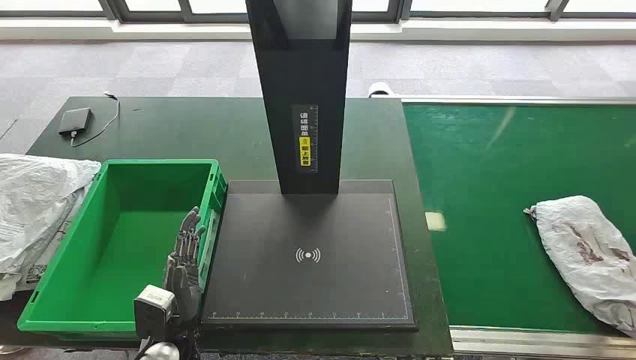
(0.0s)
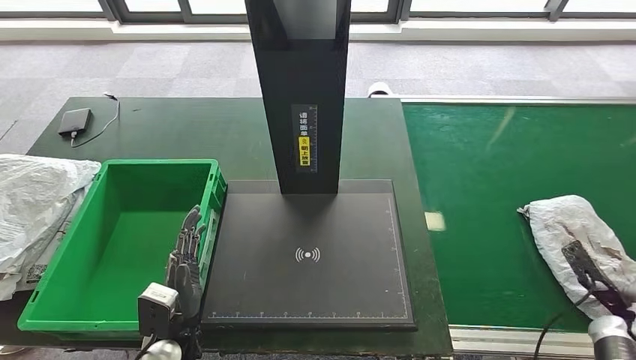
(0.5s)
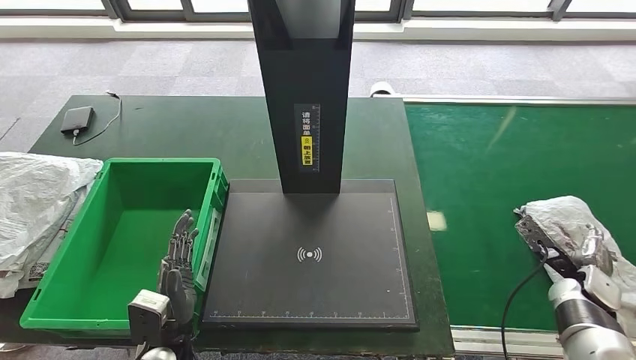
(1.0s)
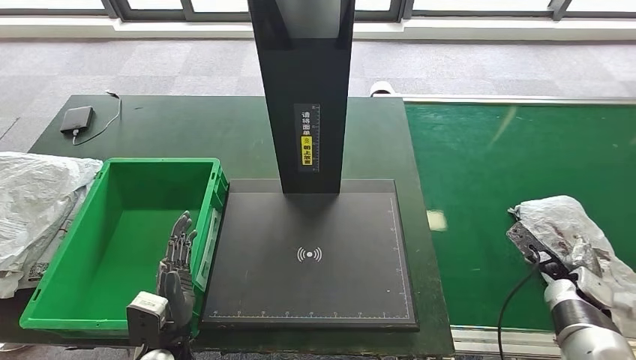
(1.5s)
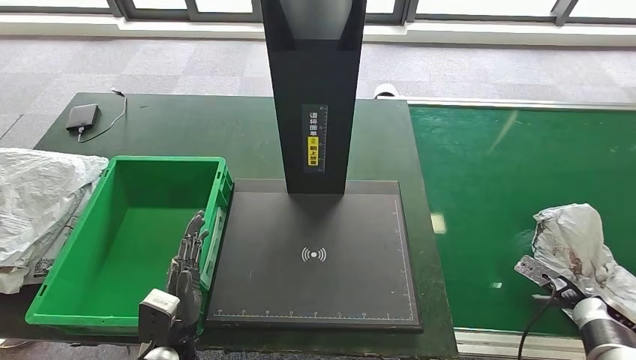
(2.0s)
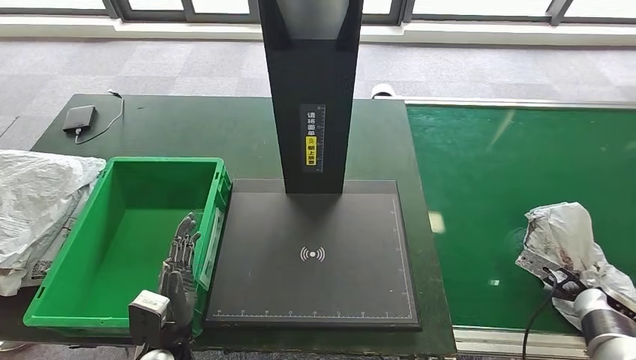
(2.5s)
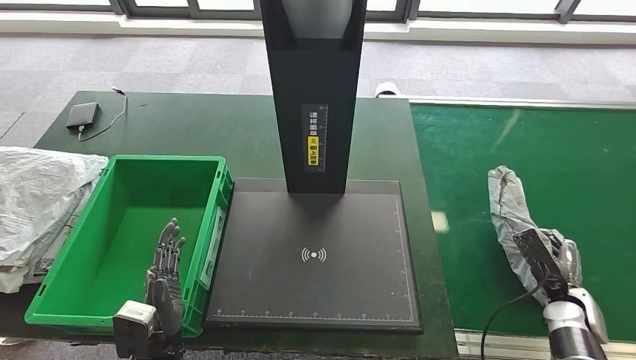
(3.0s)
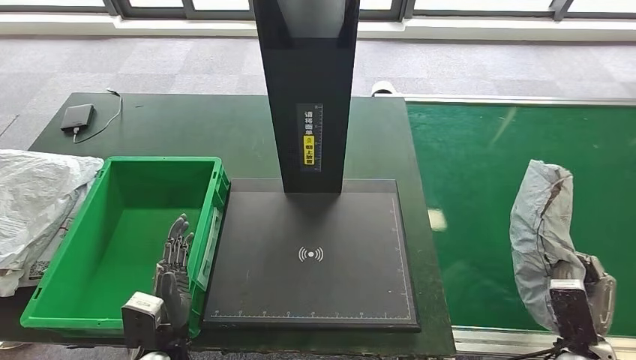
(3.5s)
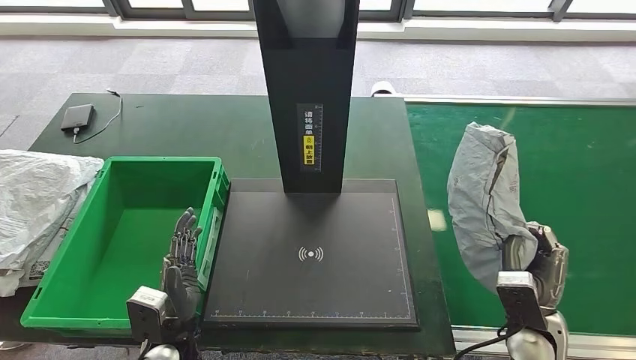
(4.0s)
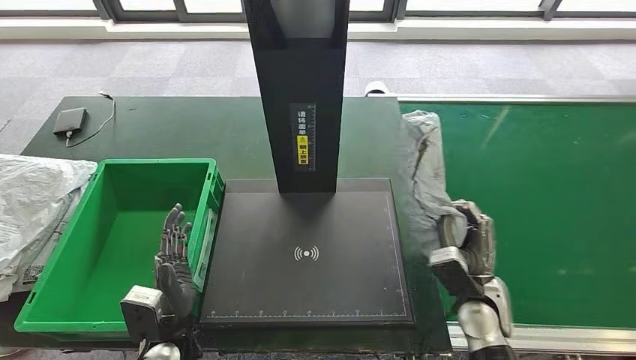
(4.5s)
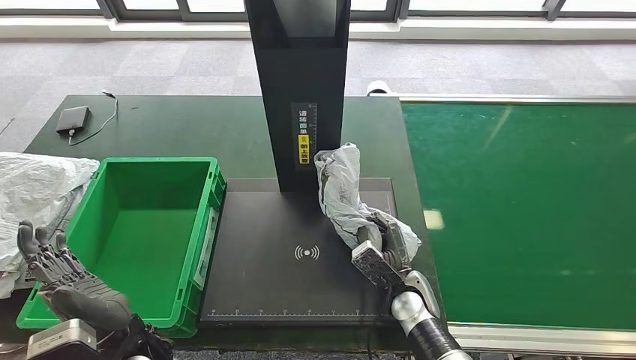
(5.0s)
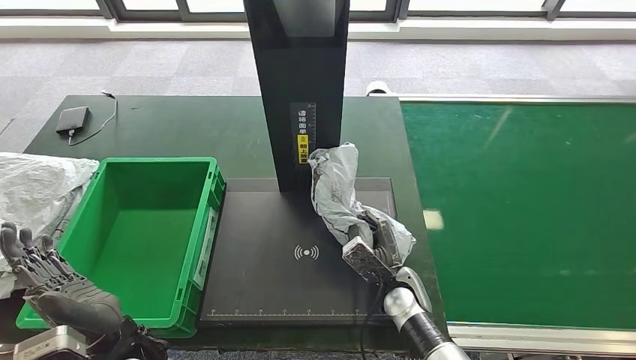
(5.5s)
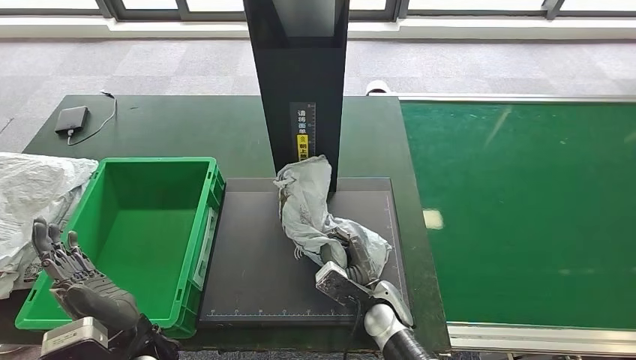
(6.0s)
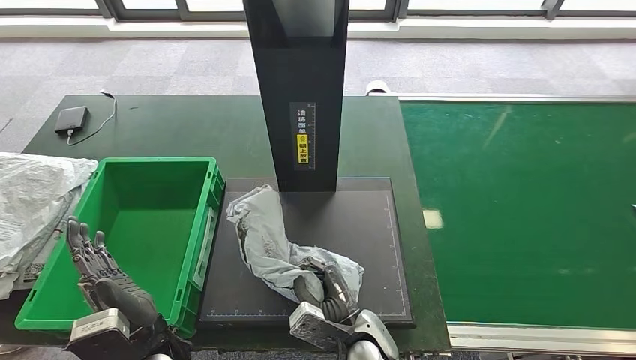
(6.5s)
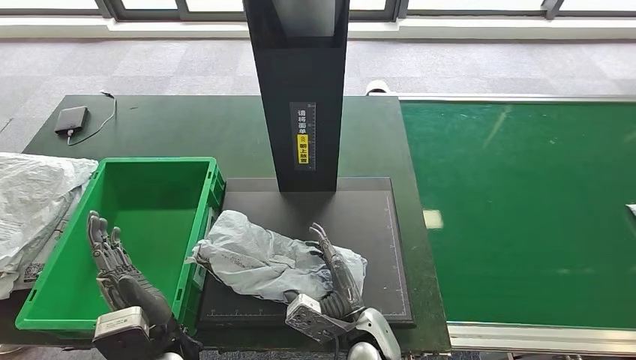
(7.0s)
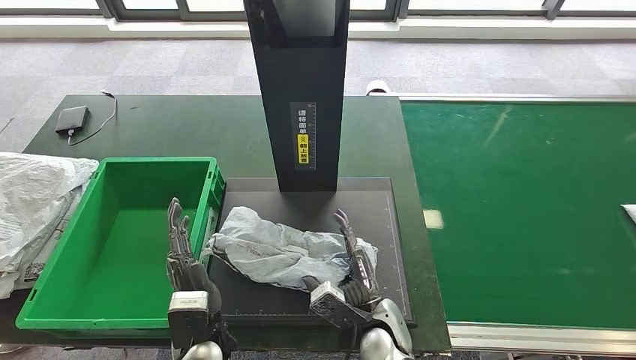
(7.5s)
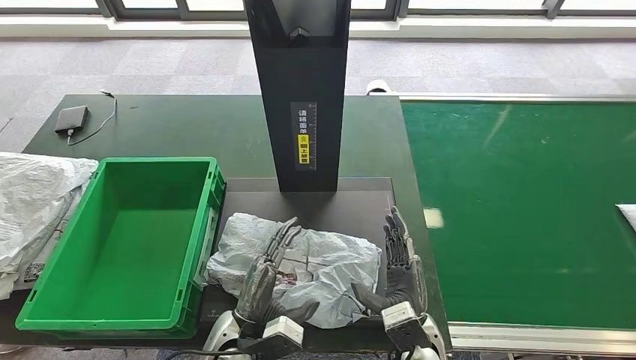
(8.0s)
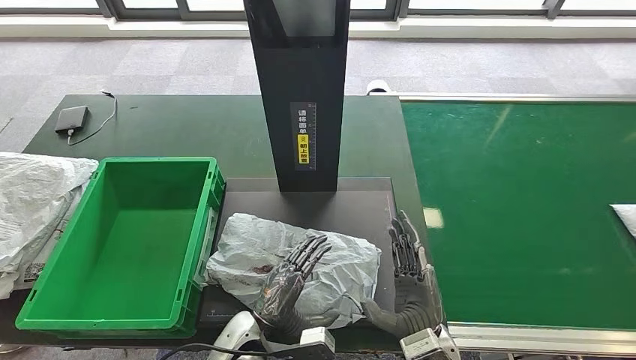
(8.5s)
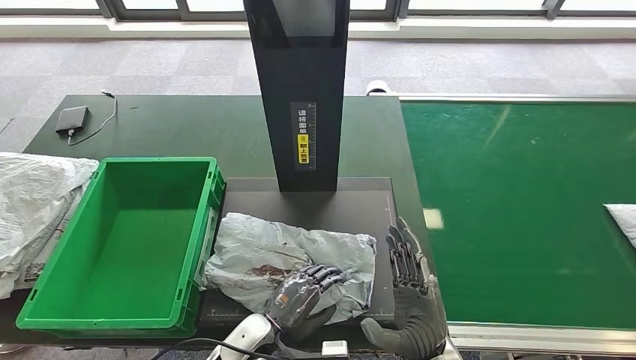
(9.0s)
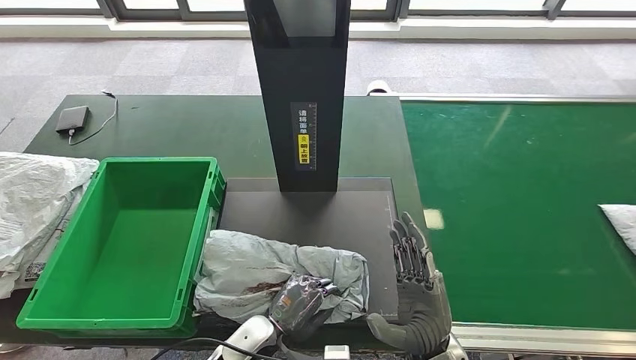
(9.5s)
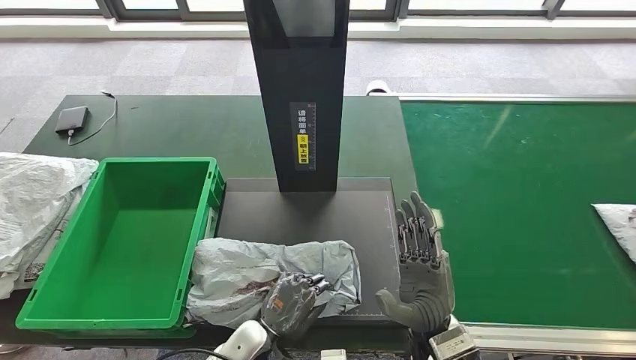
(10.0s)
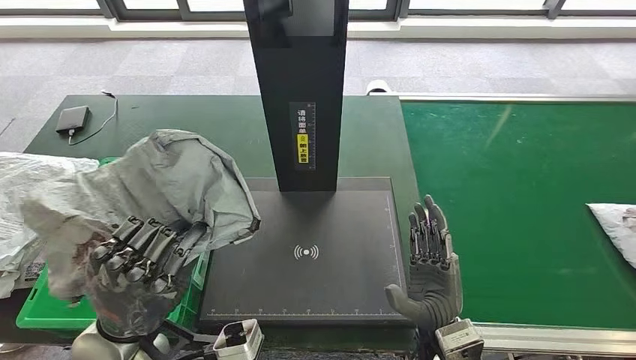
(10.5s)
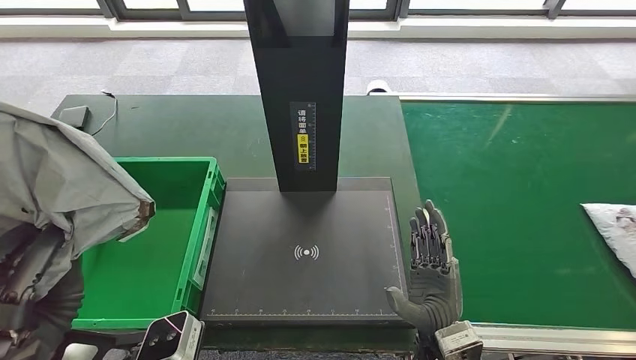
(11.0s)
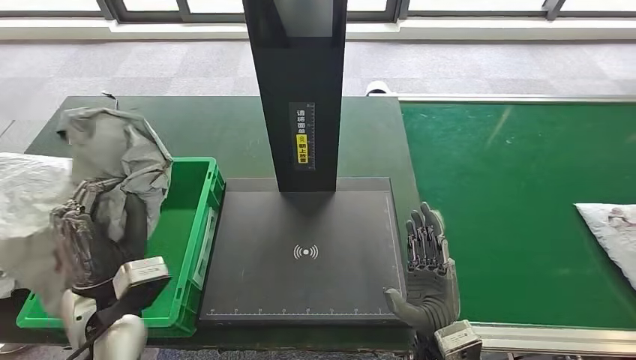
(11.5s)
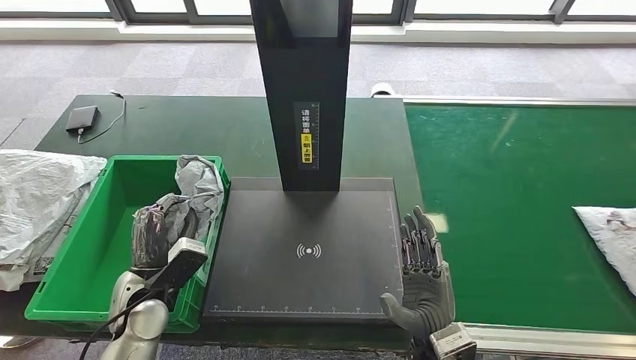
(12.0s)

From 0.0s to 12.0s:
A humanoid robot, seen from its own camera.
Step, from 0.0s to 3.5s: Take the parcel off the conveyor belt.
Step, from 4.5s to 7.5s: Place the parcel onto the inbound machine.
Step, from 8.0s to 10.0s: Pick up the parcel from the inbound machine.
From 6.0s to 8.0s: The left hand is displaced to the right and downward by roughly 10 cm, while the right hand moves backward, about 5 cm.
From 8.0s to 10.0s: The right hand travels upward by roughly 5 cm.

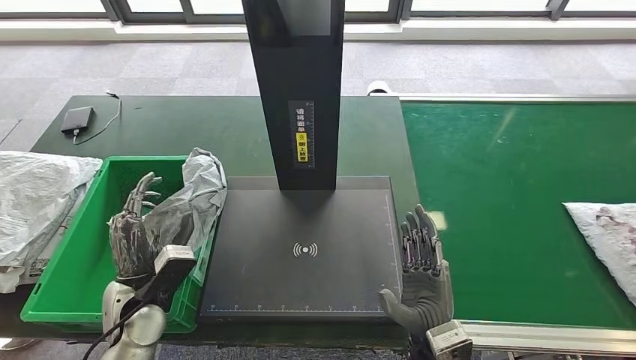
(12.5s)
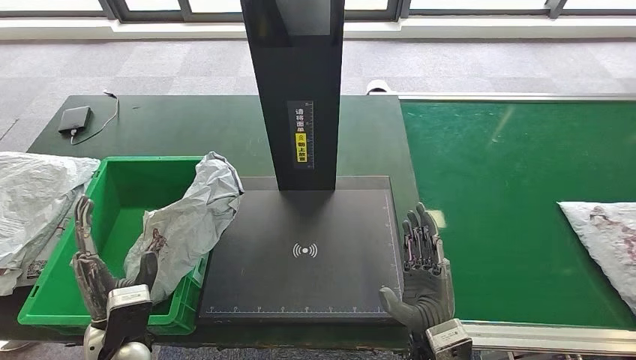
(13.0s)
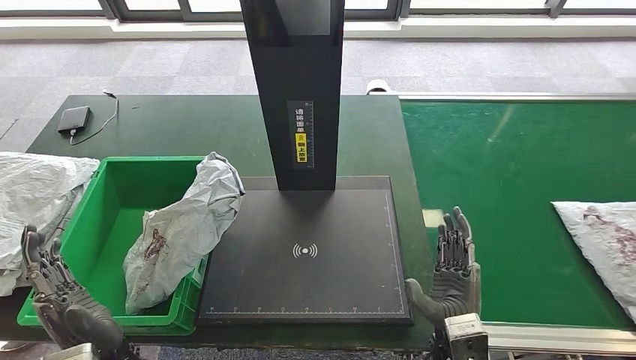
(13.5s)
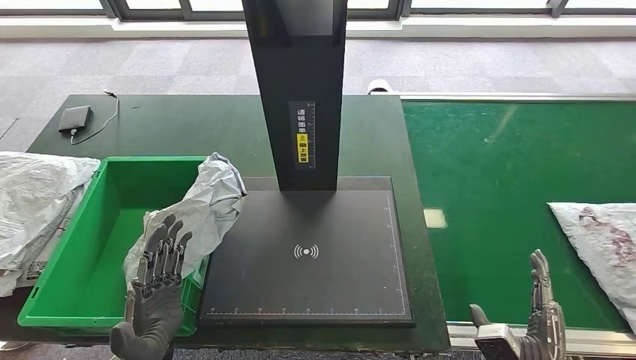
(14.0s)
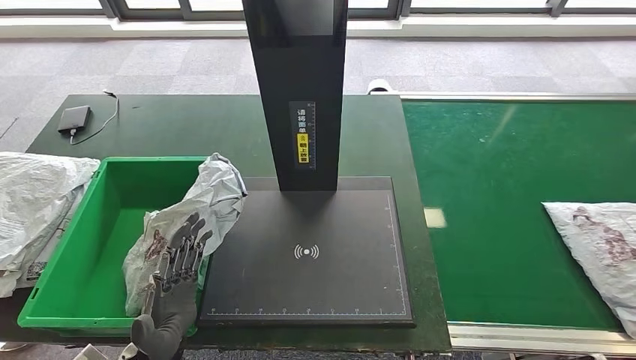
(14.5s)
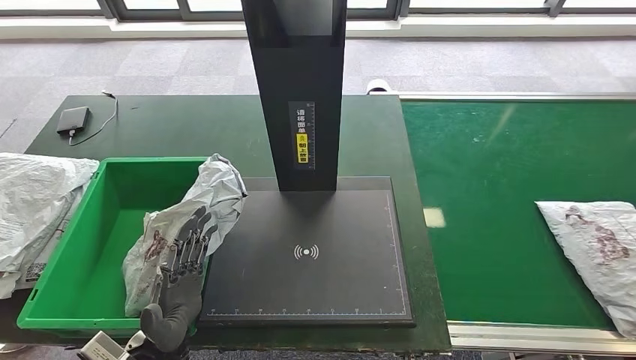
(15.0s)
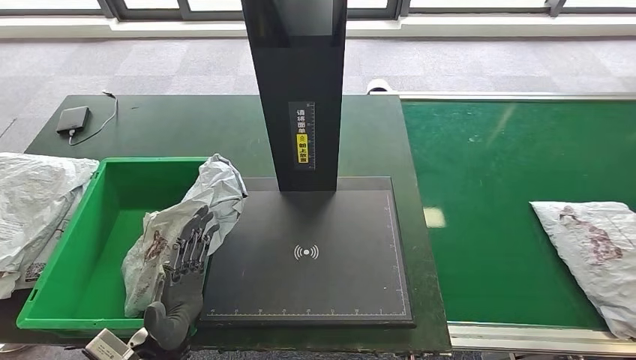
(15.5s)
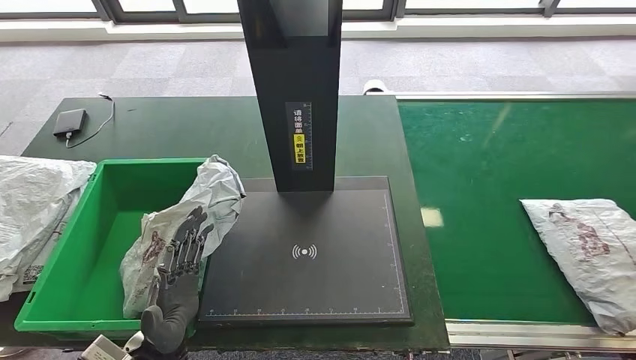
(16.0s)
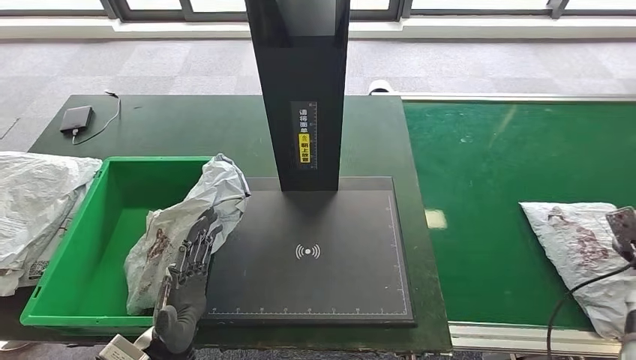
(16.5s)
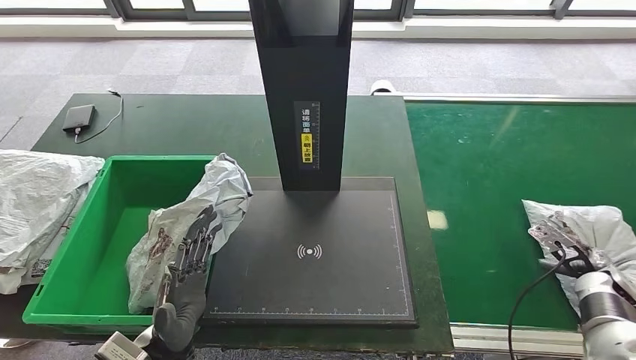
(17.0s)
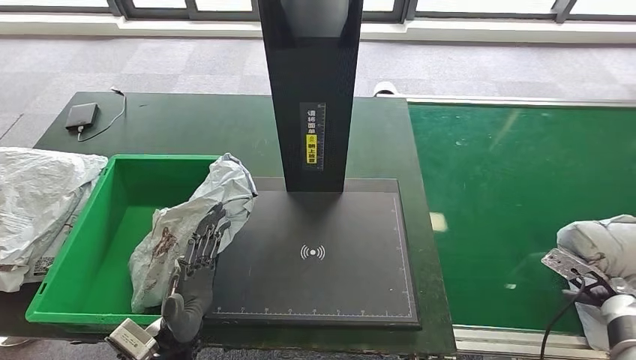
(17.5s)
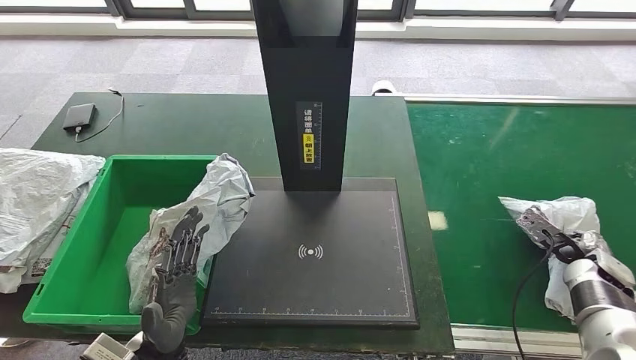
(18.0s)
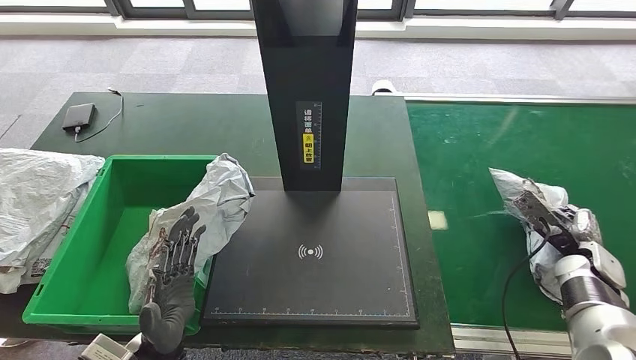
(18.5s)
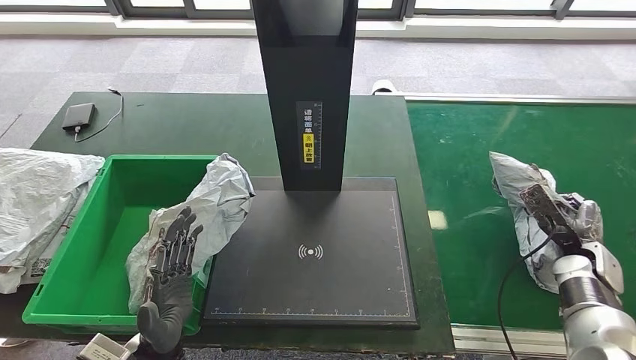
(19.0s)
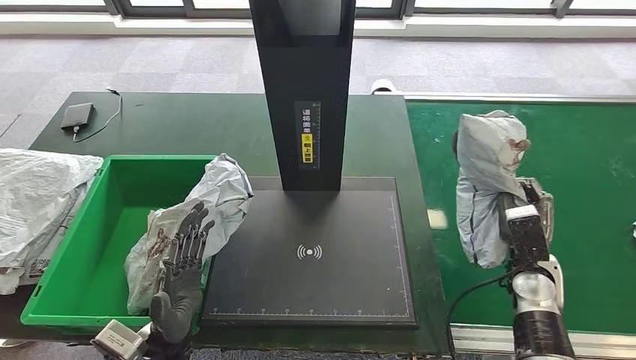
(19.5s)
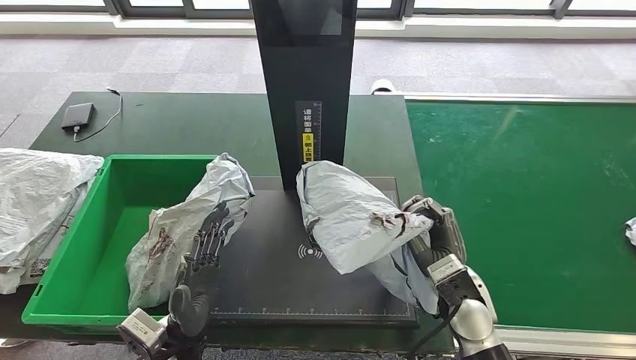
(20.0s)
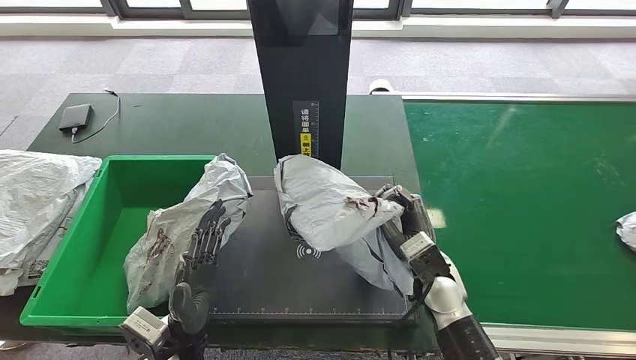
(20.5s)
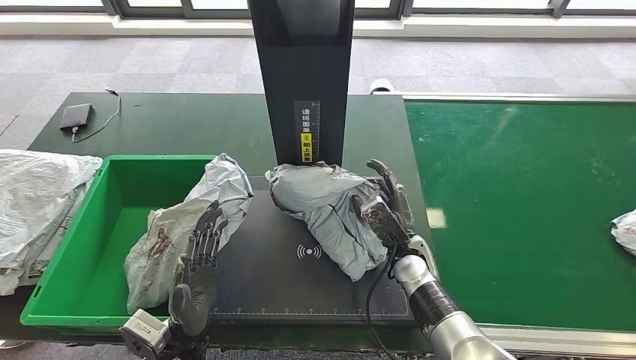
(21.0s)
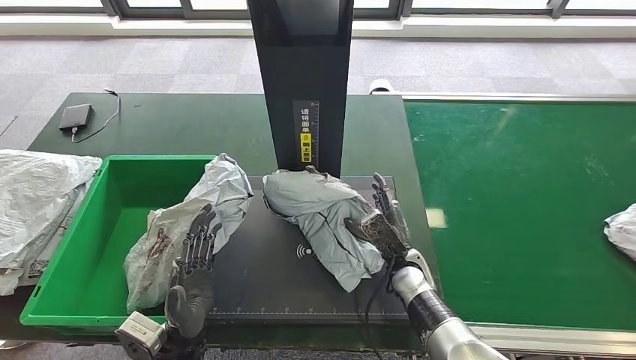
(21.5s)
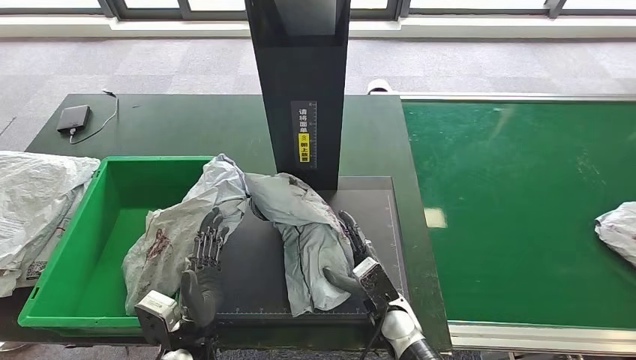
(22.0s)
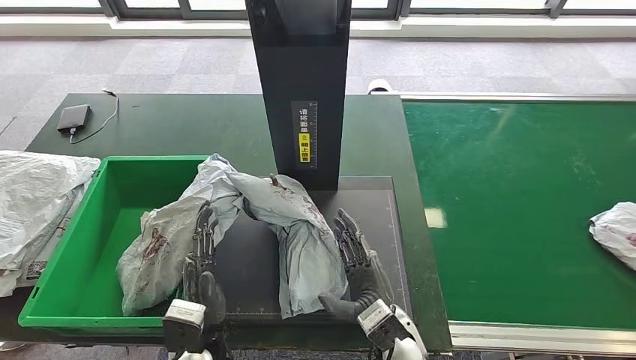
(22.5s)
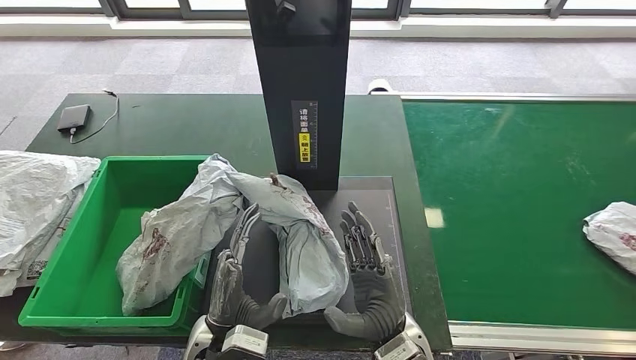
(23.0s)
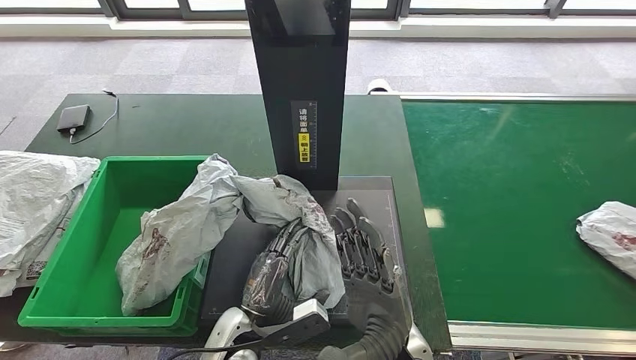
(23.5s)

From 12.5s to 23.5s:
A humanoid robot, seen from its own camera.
Step, from 14.5s to 19.0s: Pick up the parcel from the conveyor belt.
Step, from 19.5s to 23.0s: Place the parcel onto the inbound machine.
From 14.5s to 16.0s: The right hand goes approximately 15 cm to the right and forward.
From 20.0s to 21.5s: The right hand is displaced to the left and downward by some 10 cm.
From 21.5s to 23.5s: The right hand goes some 20 cm backward, upward and to the left; the left hand travels to the right by roughly 10 cm.
